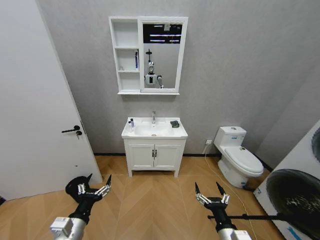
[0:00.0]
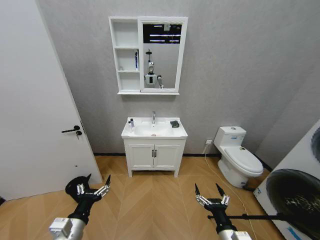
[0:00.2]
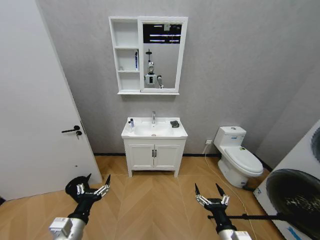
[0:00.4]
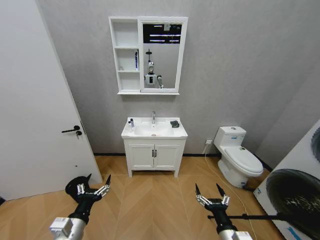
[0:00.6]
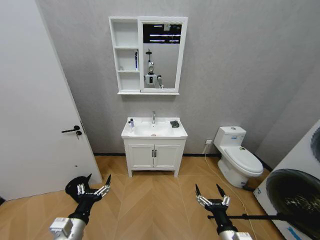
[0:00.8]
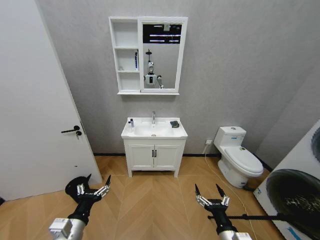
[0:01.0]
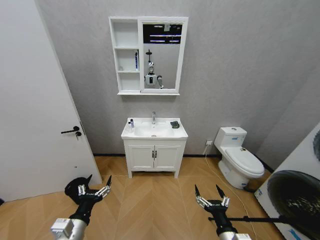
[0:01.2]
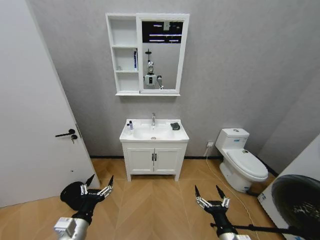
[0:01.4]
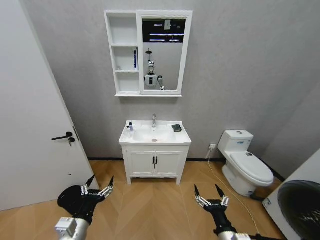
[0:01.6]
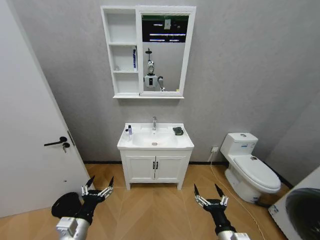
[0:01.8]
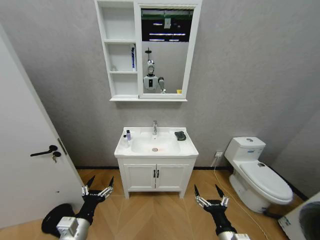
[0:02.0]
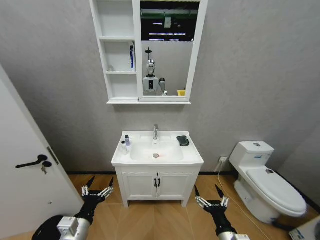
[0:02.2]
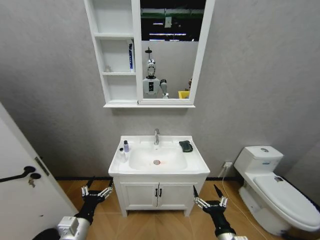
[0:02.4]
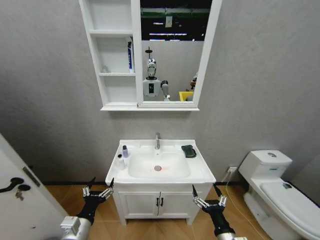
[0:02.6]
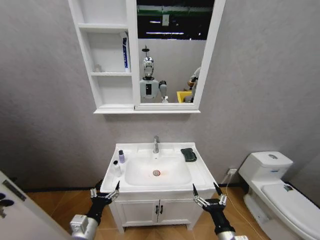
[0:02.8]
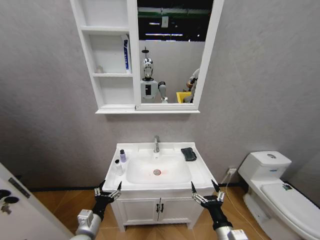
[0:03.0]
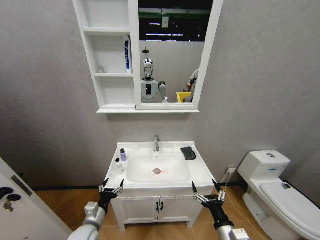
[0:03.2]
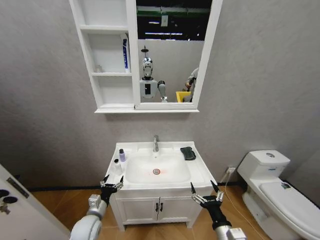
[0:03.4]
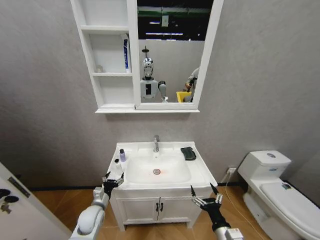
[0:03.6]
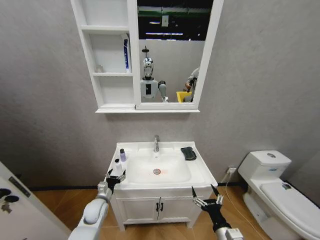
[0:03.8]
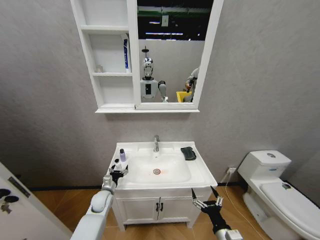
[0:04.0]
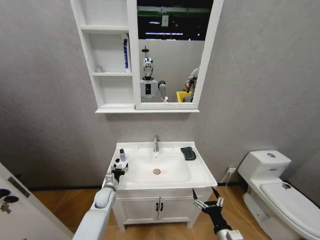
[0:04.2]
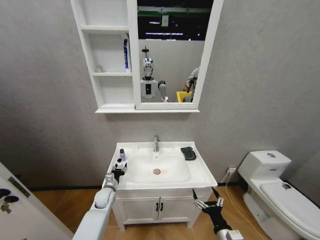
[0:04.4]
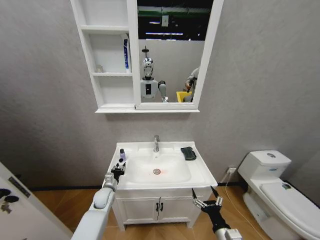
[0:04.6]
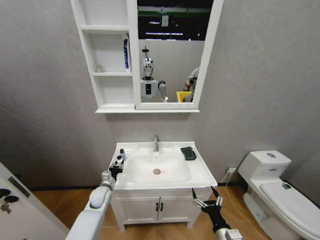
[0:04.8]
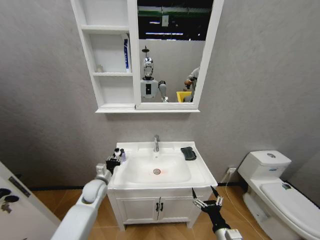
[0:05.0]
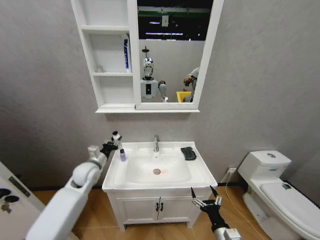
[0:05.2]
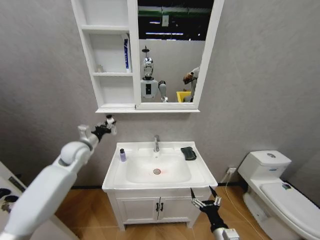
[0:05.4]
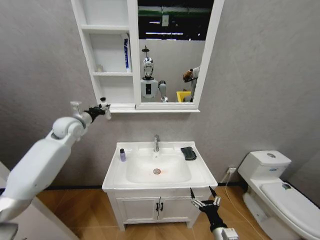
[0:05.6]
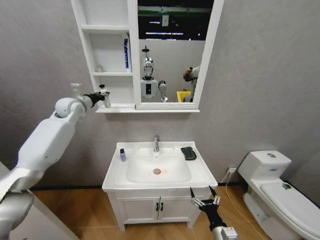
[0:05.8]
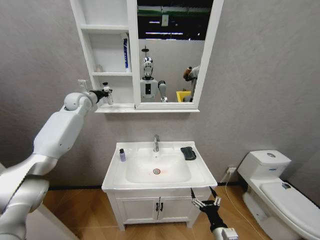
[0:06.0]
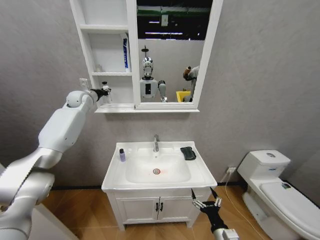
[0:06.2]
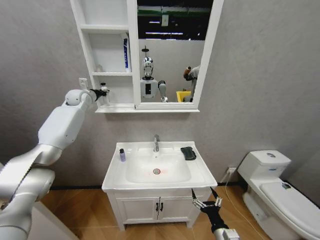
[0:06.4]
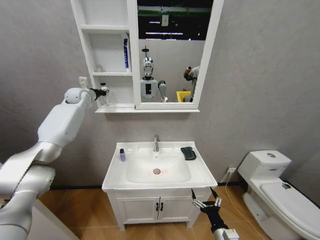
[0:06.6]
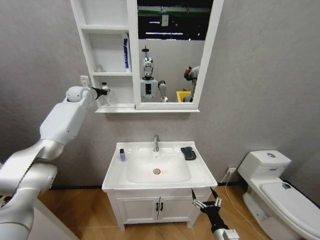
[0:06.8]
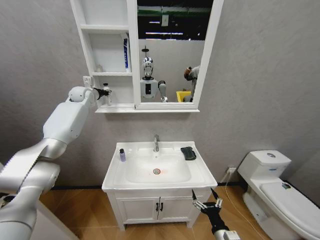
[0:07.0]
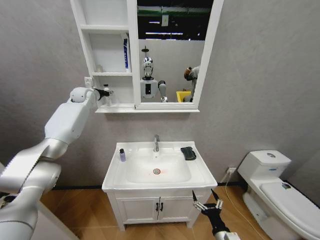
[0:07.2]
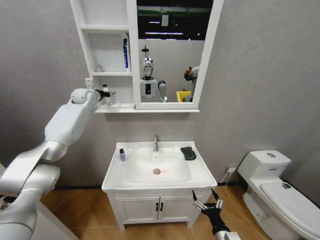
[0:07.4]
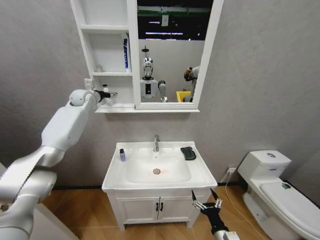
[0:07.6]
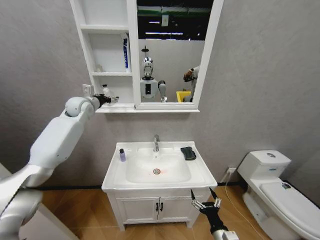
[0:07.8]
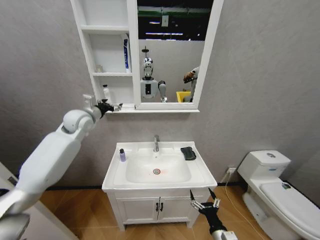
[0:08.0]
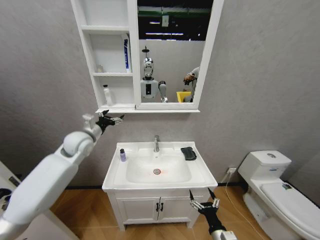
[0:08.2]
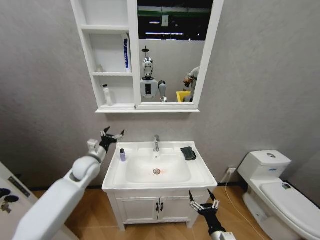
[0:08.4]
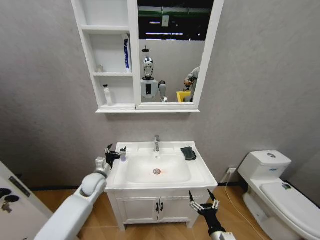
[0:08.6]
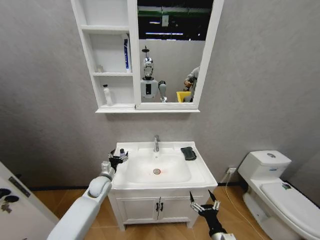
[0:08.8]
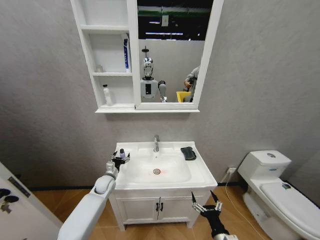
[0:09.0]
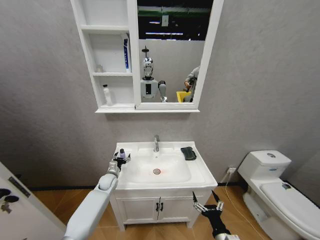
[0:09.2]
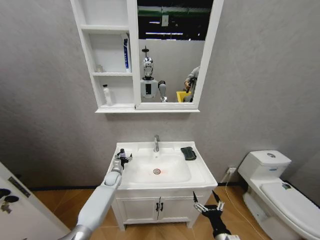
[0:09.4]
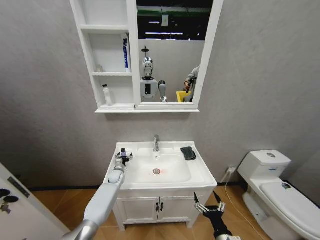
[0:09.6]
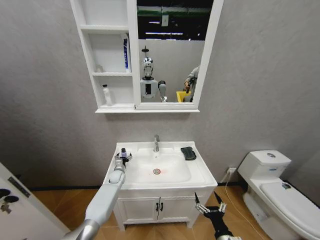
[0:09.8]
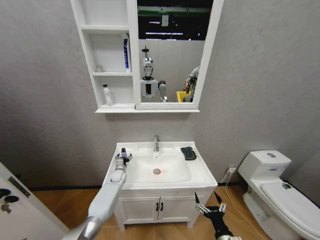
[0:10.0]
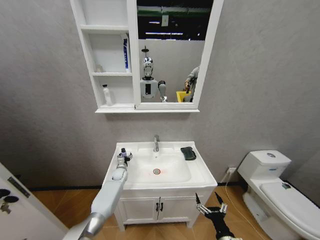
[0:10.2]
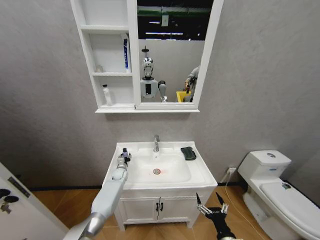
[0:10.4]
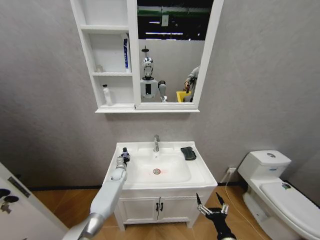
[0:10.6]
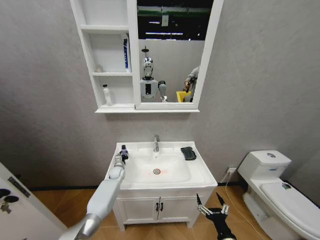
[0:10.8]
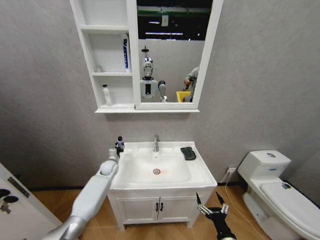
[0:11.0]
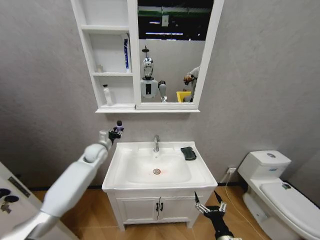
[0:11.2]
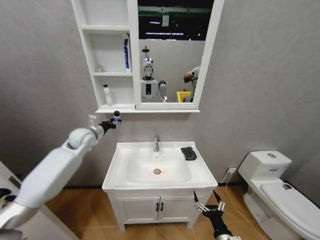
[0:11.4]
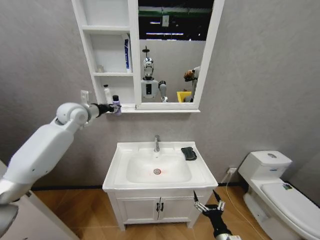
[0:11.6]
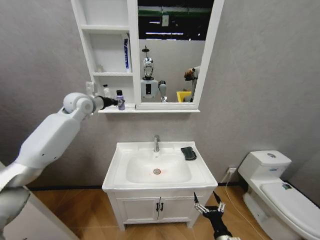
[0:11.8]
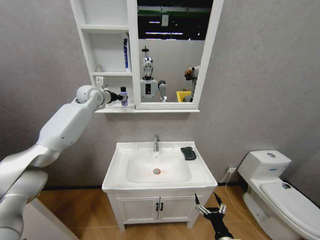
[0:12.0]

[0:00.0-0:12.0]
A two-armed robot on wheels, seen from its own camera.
Task of the whole recording: Move facial cleanser and shampoo from washbasin to cabinet, then wipe washbasin with towel.
0:01.6 to 0:03.0: The left gripper is displaced downward by some 5 cm.
0:03.0 to 0:04.4: The left gripper goes approximately 20 cm forward, and closes.
0:04.4 to 0:06.0: The left gripper shifts about 50 cm upward, and closes up.
0:06.0 to 0:07.6: The left gripper opens its fingers.
0:07.6 to 0:09.0: The left gripper goes about 40 cm downward.
0:09.0 to 0:10.4: The left gripper moves forward and downward, approximately 10 cm, and closes its fingers.
0:10.4 to 0:12.0: The left gripper travels upward by about 50 cm.

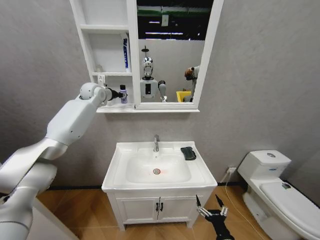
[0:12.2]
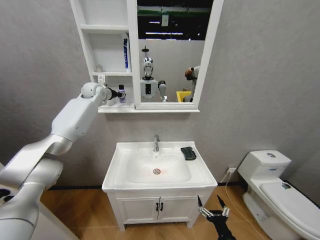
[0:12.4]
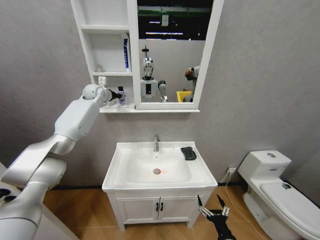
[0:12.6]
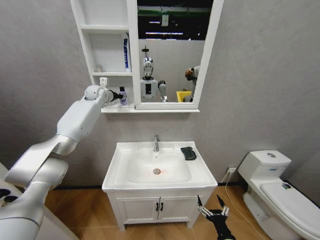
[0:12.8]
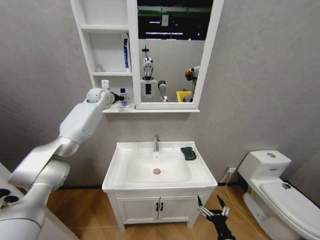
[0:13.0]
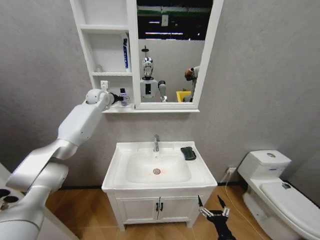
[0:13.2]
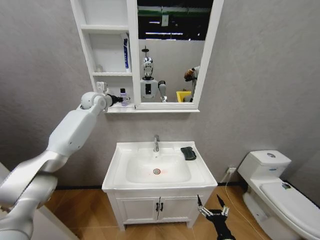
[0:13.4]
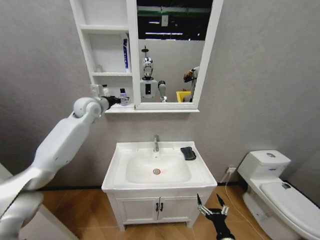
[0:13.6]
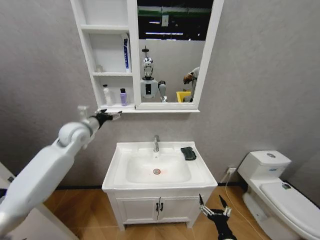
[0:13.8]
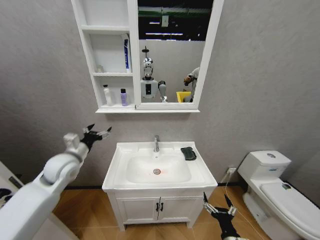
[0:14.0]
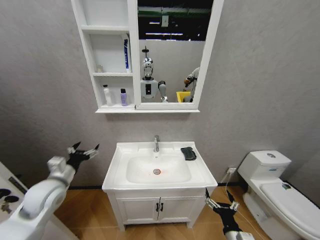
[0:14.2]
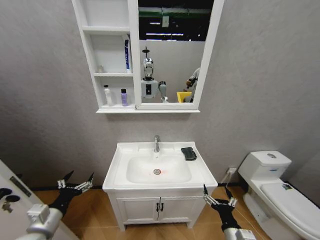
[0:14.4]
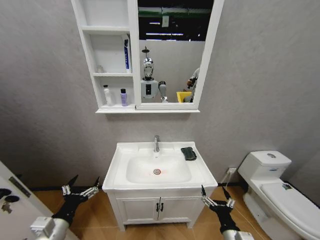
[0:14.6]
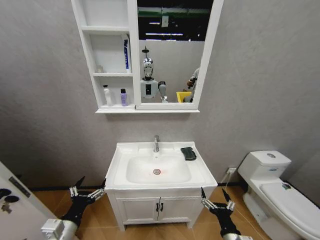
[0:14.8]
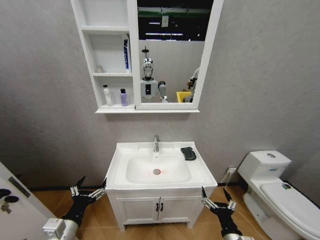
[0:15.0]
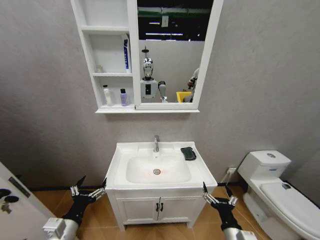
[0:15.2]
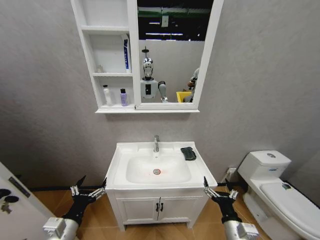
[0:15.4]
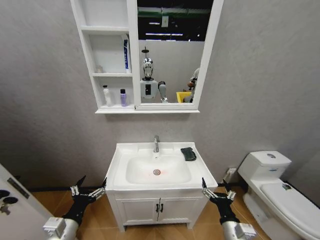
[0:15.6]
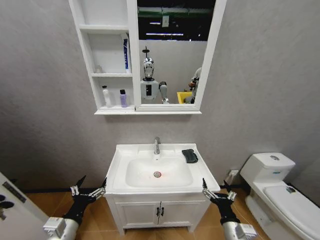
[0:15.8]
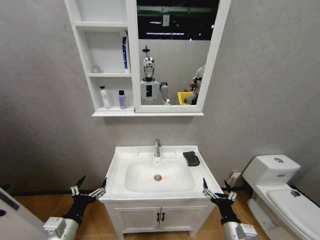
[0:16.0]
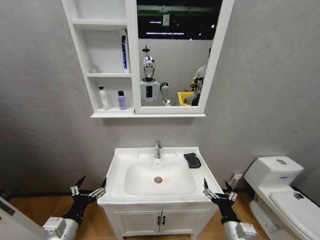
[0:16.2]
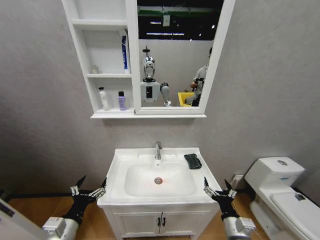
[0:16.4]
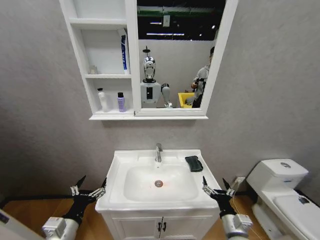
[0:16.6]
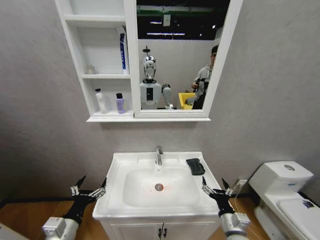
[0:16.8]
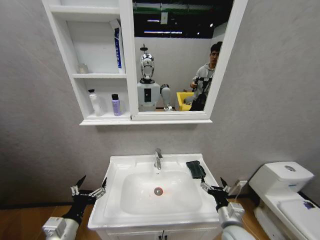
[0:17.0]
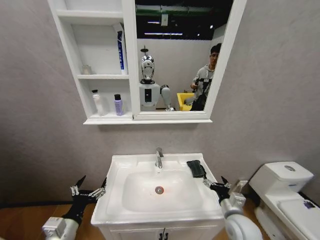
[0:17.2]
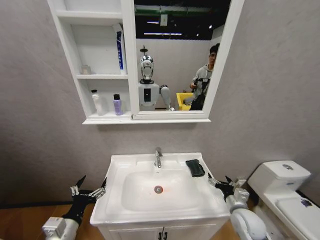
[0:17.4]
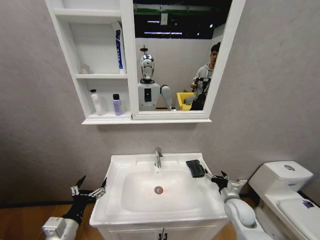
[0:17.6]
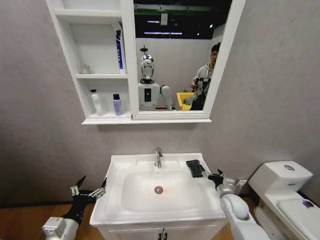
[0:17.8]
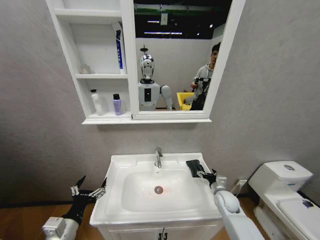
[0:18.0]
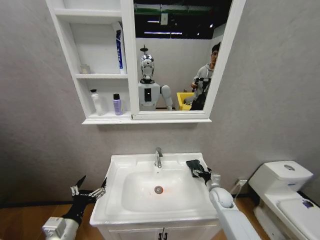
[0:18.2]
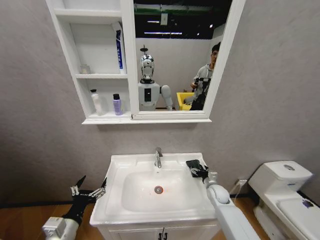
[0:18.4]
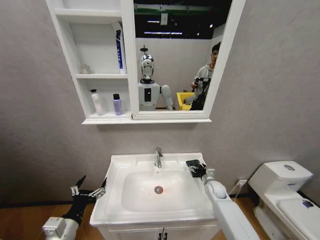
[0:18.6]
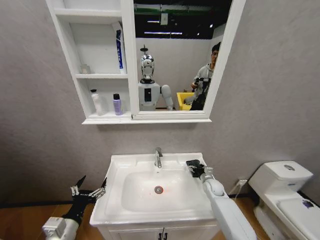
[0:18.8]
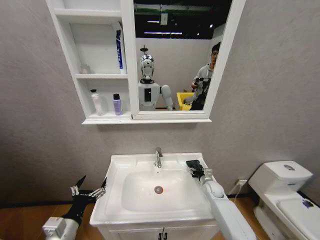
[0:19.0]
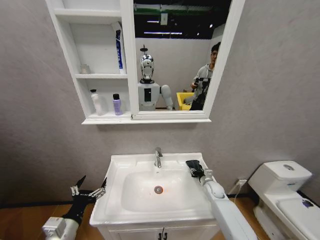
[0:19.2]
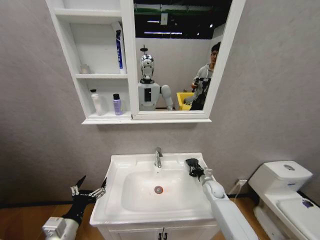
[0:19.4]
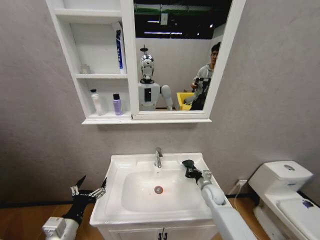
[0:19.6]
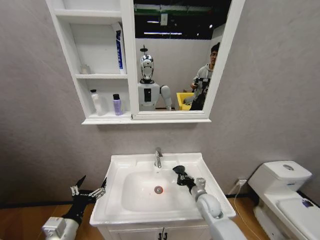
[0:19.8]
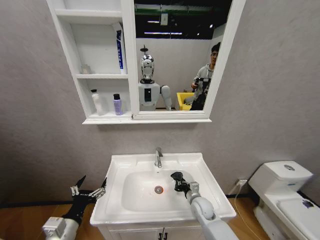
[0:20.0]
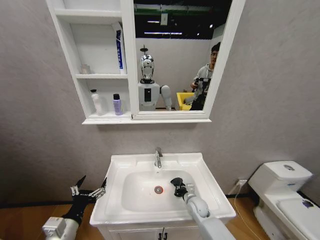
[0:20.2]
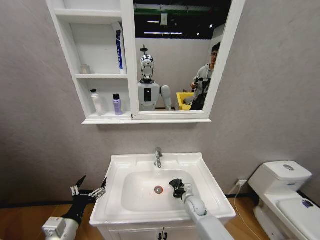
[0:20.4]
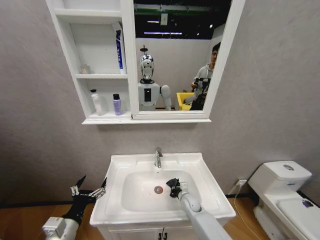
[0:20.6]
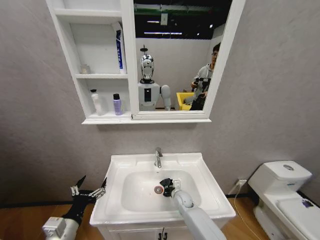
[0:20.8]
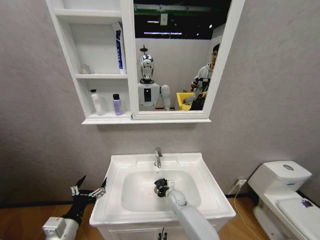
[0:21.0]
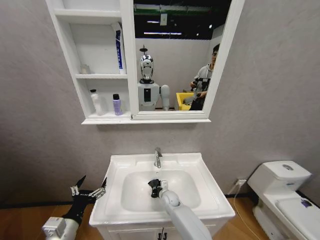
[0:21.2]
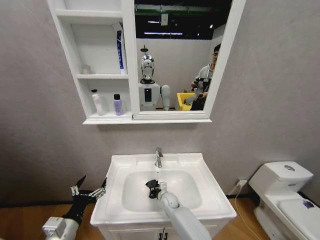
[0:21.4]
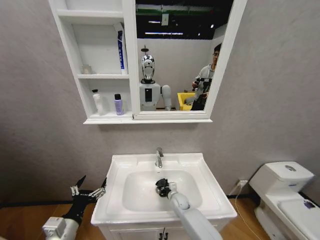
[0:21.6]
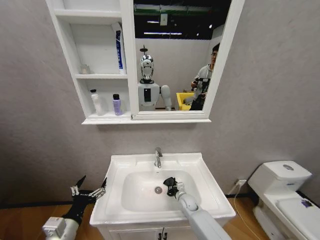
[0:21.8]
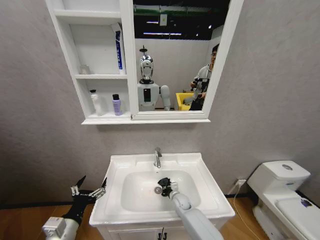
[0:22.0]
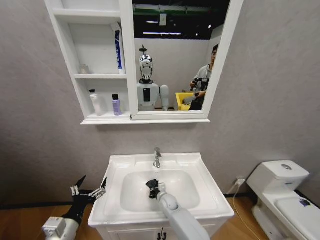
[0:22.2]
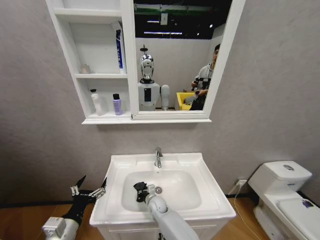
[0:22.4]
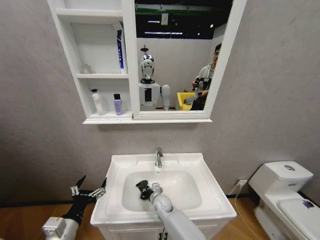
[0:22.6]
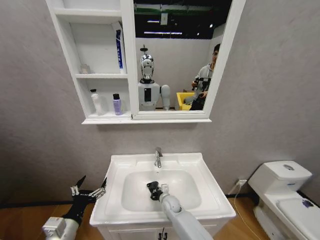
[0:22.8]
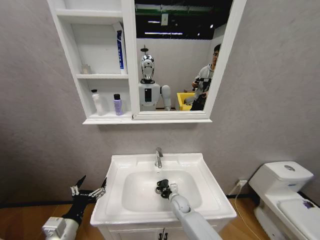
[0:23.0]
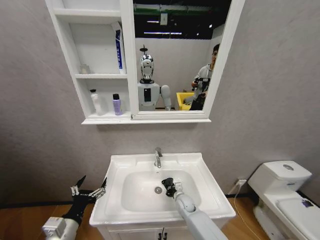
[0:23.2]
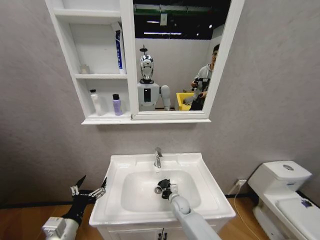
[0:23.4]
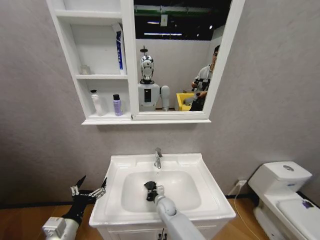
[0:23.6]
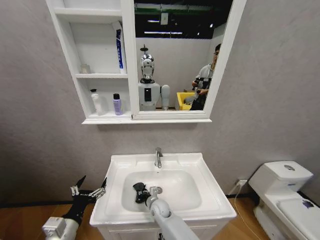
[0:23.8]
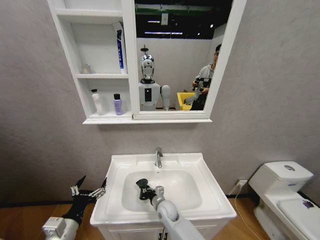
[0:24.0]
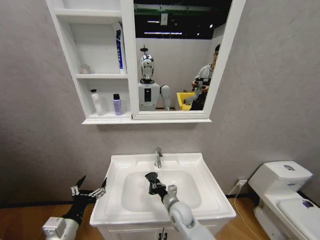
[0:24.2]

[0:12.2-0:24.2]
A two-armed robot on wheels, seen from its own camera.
Task of the whole recording: Move facial cleanser and shampoo from washbasin to cabinet, then wipe washbasin with towel.
0:12.2 to 0:13.8: The left gripper is displaced backward and downward by some 20 cm, and opens up.
0:13.8 to 0:15.2: The right gripper is displaced upward by about 5 cm; the left gripper is displaced backward and downward by some 35 cm.
0:16.6 to 0:18.2: The right gripper heads forward, covering roughly 20 cm.
0:18.2 to 0:19.8: The right gripper heads to the left, covering some 10 cm, and closes up.
0:19.8 to 0:21.2: The right gripper goes roughly 20 cm to the left, downward and forward.
0:21.2 to 0:22.6: The right gripper moves some 10 cm to the right and comes back.
0:22.6 to 0:24.2: The right gripper goes left and right, about 15 cm each way, reversing 2 times.
